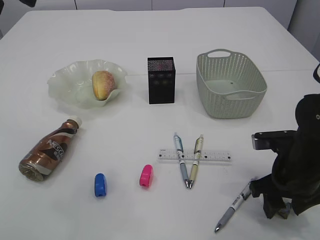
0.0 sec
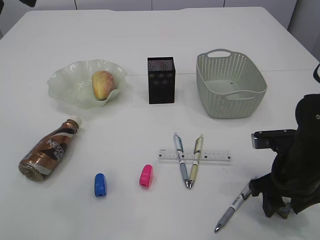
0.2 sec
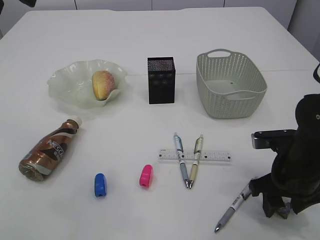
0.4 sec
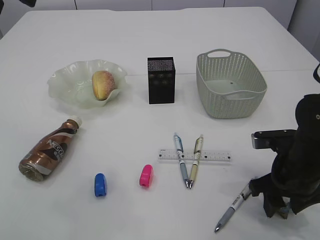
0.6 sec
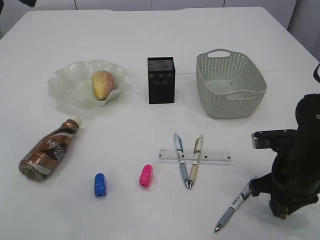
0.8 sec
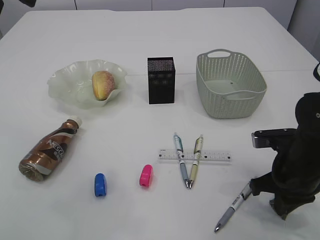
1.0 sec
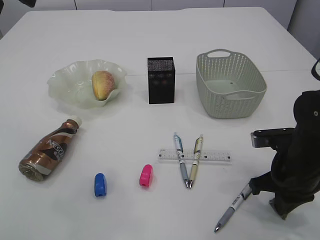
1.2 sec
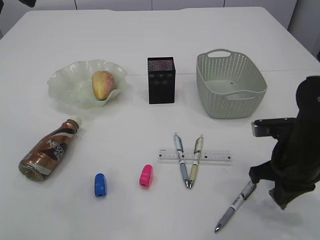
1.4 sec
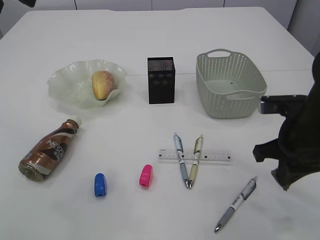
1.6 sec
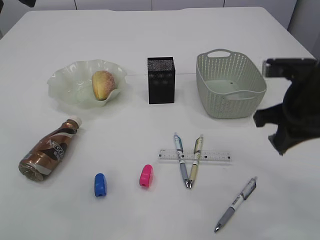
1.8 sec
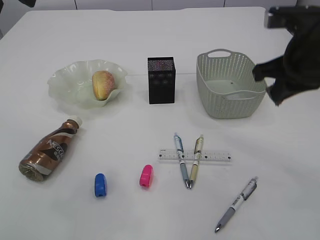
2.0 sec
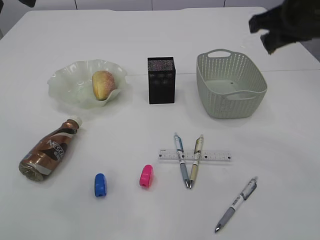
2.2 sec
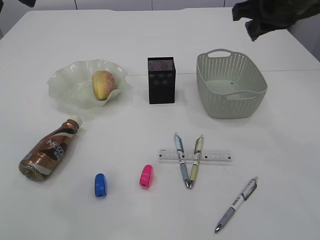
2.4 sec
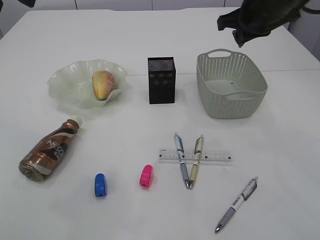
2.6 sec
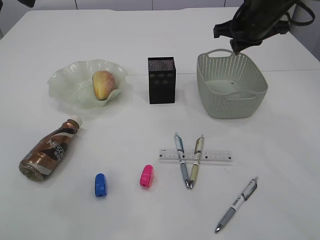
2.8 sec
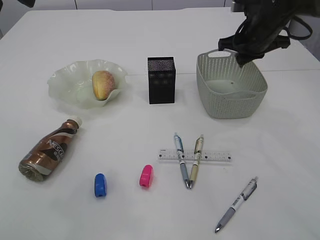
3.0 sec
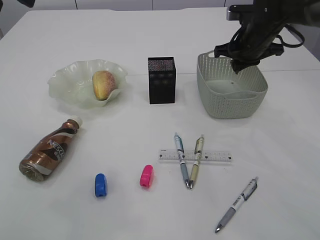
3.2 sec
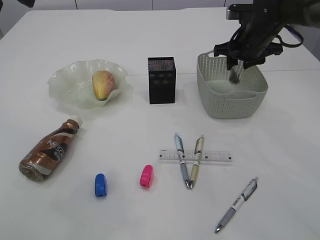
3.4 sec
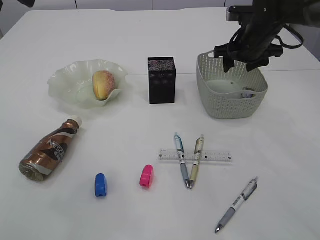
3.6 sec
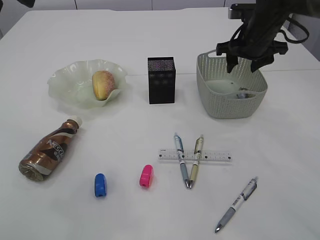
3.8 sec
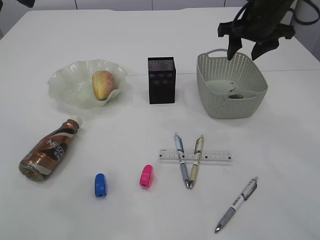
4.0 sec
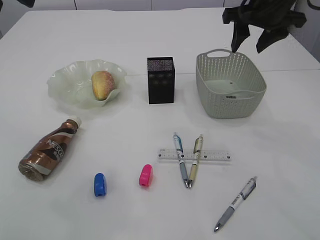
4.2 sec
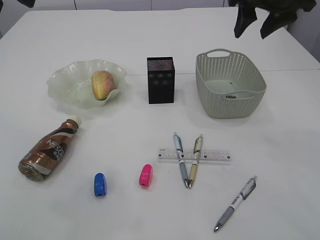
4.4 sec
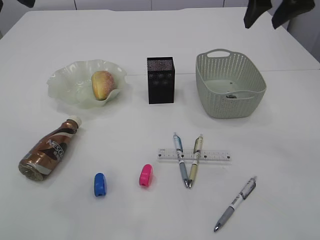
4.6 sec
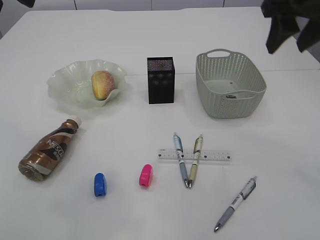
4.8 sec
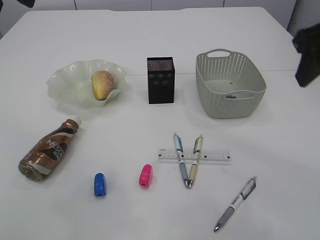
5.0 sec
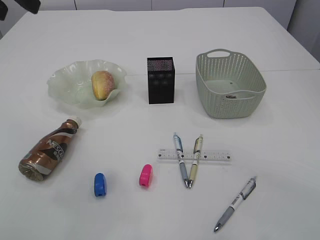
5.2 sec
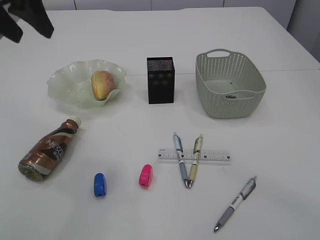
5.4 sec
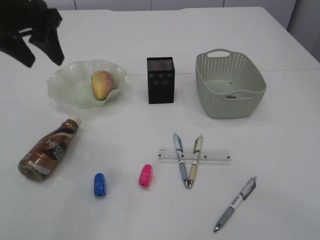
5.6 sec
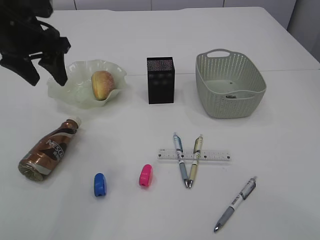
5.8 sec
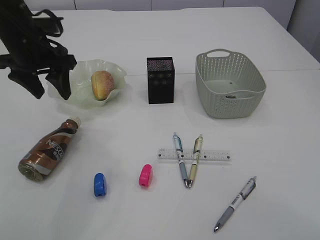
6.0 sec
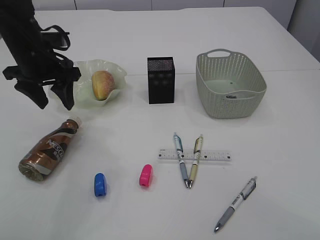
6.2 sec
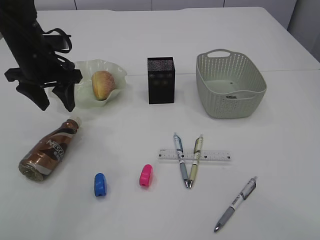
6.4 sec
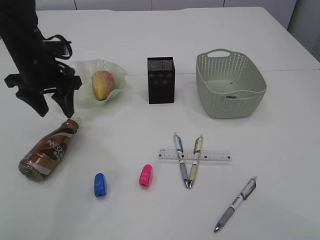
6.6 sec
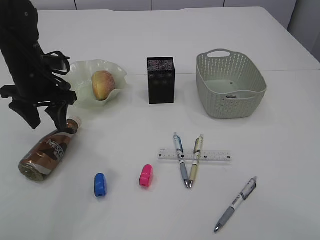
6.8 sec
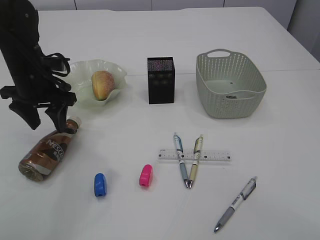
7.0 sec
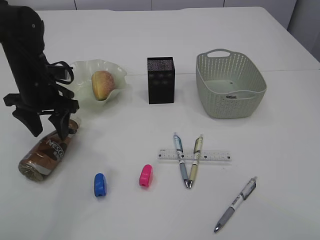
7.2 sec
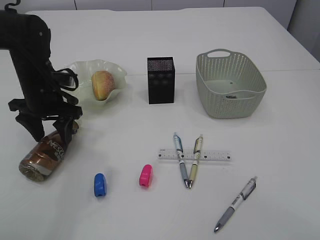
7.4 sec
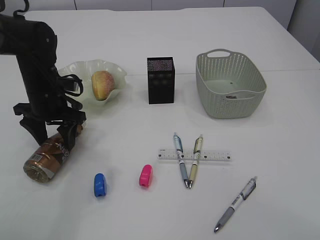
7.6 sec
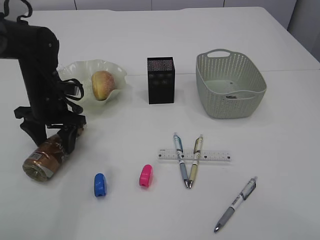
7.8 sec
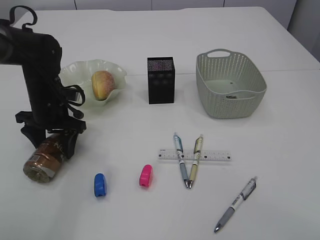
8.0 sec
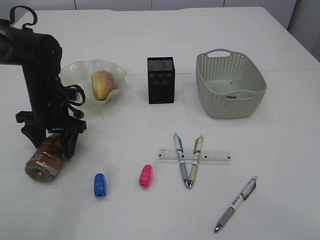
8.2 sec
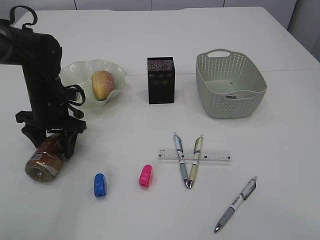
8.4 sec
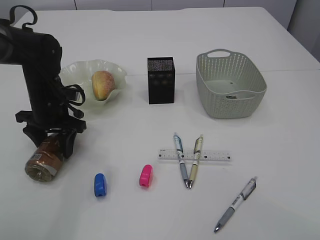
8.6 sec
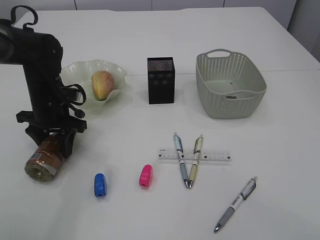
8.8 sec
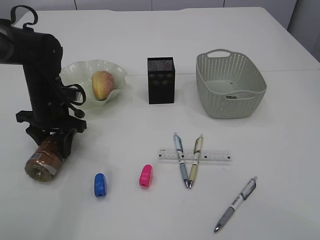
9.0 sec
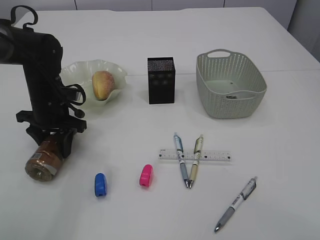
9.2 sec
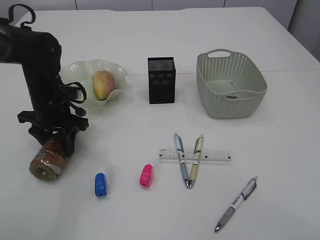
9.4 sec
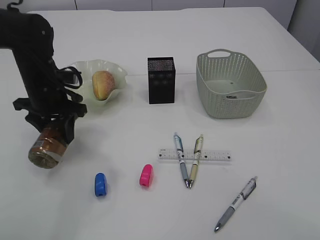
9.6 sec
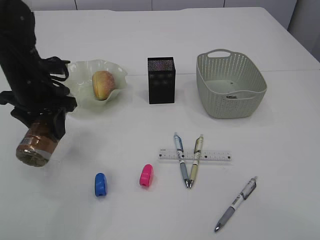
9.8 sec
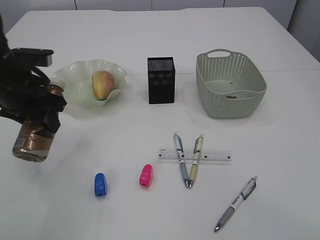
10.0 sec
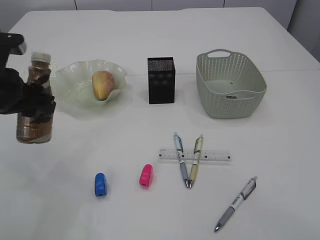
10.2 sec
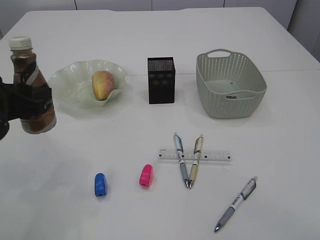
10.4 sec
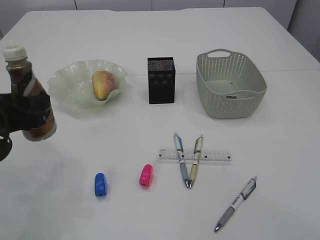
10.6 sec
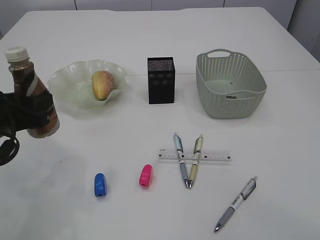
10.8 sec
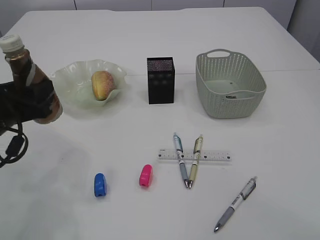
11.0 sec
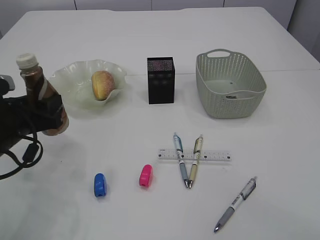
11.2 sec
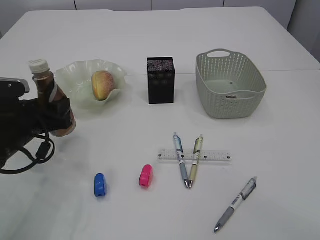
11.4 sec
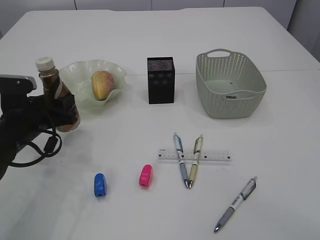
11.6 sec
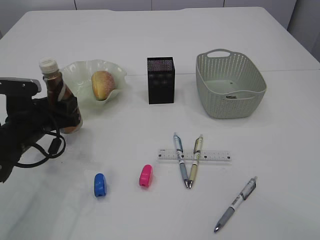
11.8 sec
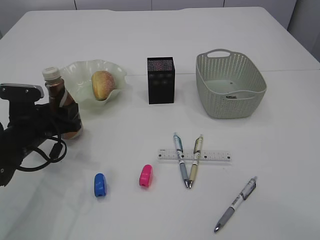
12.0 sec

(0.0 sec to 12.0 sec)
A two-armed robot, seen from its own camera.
Step, 2.0 sec - 4.2 sec: Place the waste paper in the basket.
Step, 4.4 sec - 10.0 sec: Pick up the bottle with the left arm.
0.0 sec - 1.6 sec: The right gripper travels upward by approximately 5 cm, and closes its fingers.
1.6 sec - 3.0 sec: The right gripper goes approximately 20 cm forward.
3.0 sec - 4.4 sec: The right gripper is displaced upward and backward by roughly 10 cm, and opens up.
4.4 sec - 6.0 sec: The left gripper goes roughly 20 cm downward and forward. Meanwhile the right gripper is displaced backward by about 30 cm.
6.0 sec - 7.6 sec: The left gripper moves downward, roughly 10 cm.
7.6 sec - 9.0 sec: The left gripper closes.
9.0 sec - 10.4 sec: The left gripper is displaced backward and upward by about 15 cm.
10.4 sec - 12.0 sec: The left gripper moves downward and forward, approximately 15 cm.

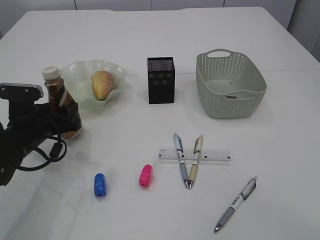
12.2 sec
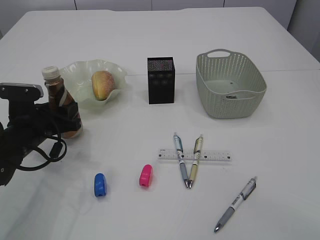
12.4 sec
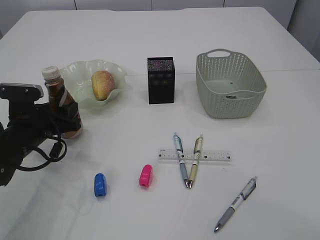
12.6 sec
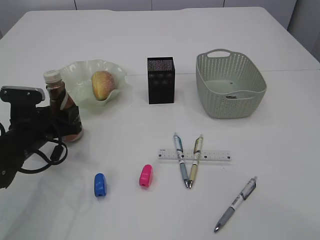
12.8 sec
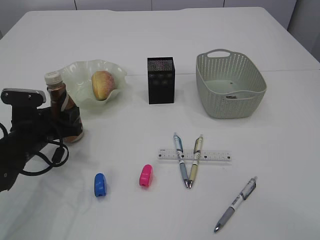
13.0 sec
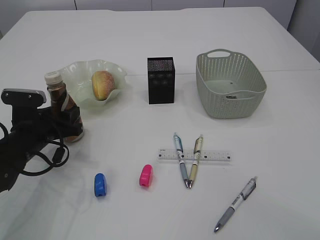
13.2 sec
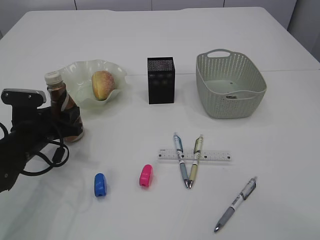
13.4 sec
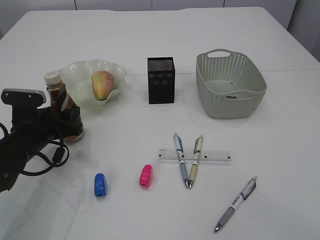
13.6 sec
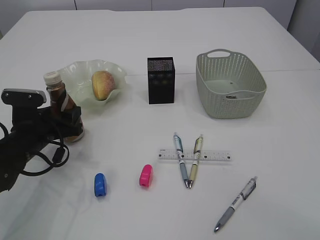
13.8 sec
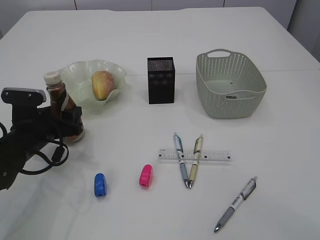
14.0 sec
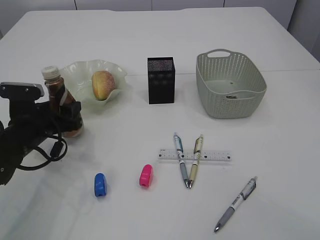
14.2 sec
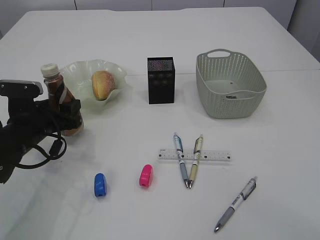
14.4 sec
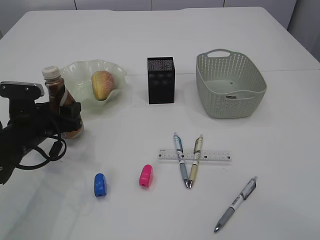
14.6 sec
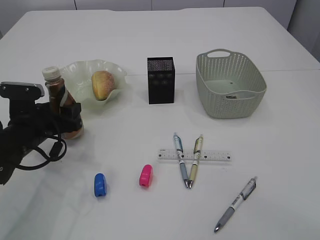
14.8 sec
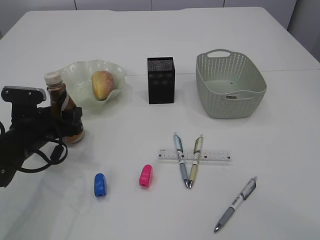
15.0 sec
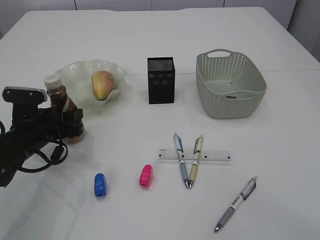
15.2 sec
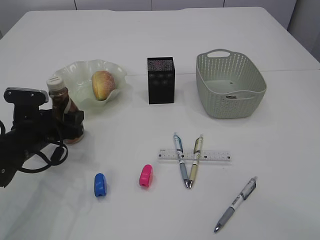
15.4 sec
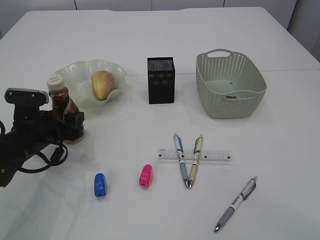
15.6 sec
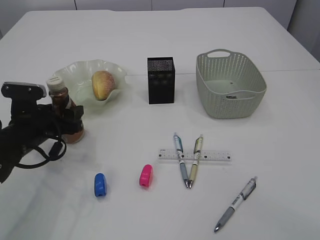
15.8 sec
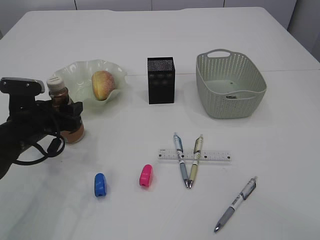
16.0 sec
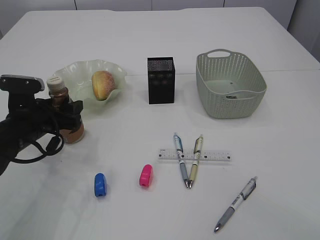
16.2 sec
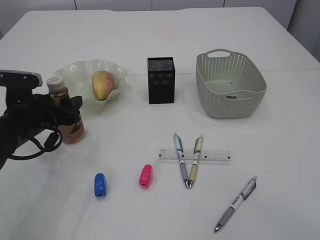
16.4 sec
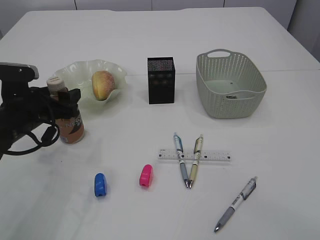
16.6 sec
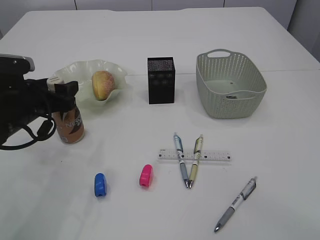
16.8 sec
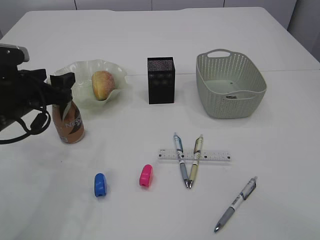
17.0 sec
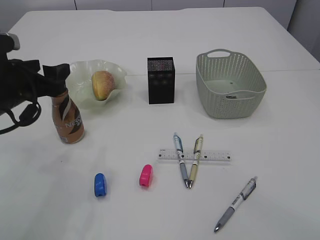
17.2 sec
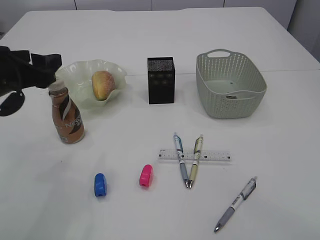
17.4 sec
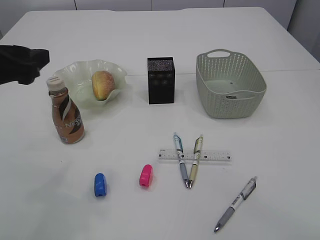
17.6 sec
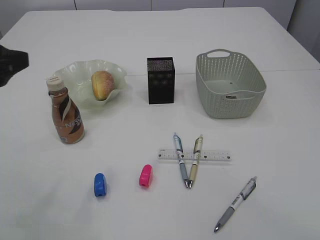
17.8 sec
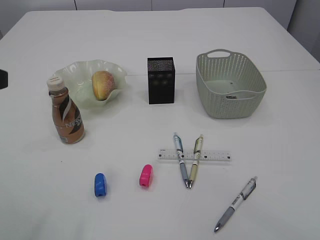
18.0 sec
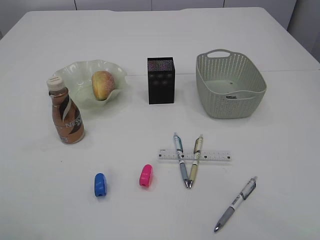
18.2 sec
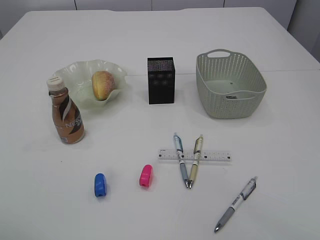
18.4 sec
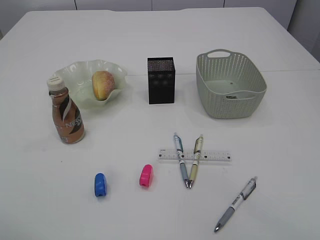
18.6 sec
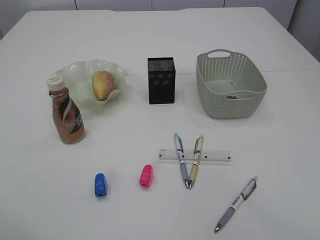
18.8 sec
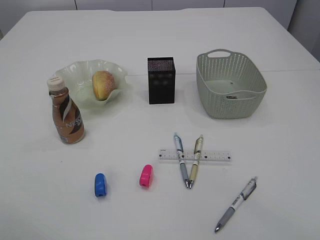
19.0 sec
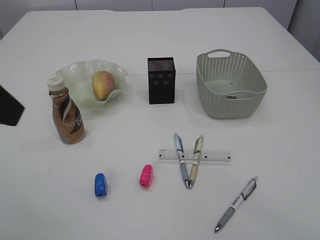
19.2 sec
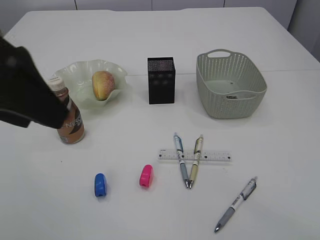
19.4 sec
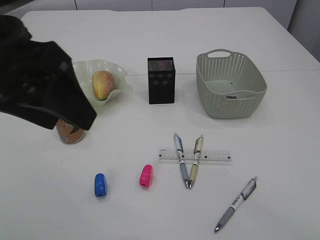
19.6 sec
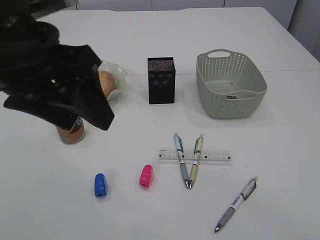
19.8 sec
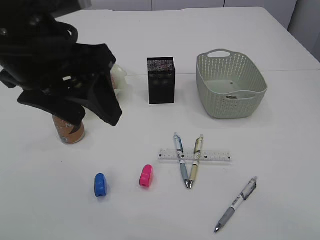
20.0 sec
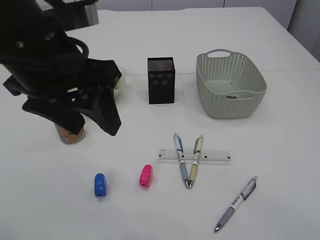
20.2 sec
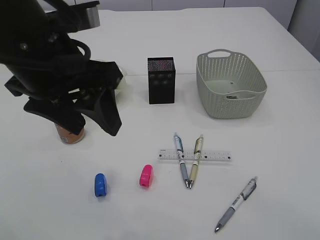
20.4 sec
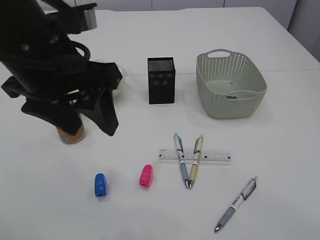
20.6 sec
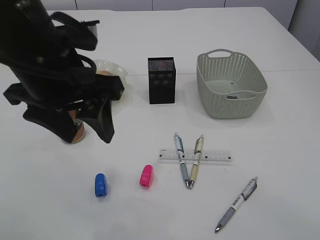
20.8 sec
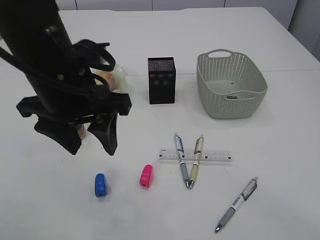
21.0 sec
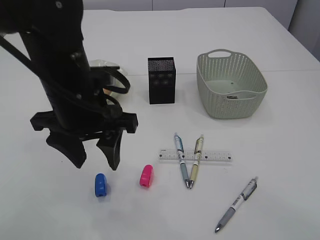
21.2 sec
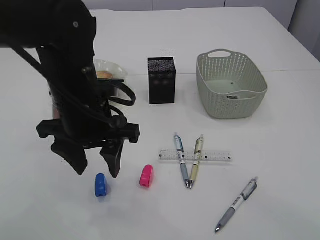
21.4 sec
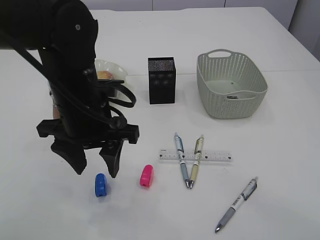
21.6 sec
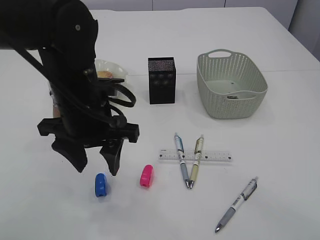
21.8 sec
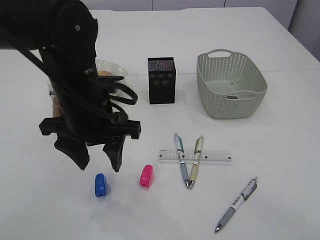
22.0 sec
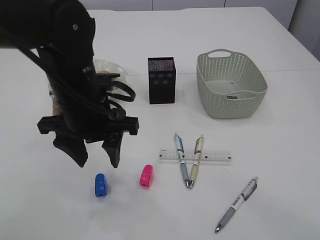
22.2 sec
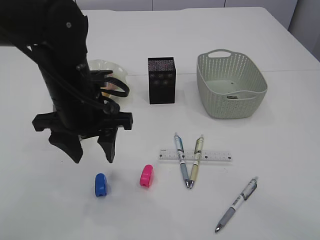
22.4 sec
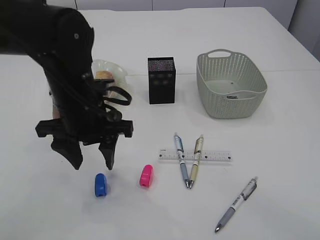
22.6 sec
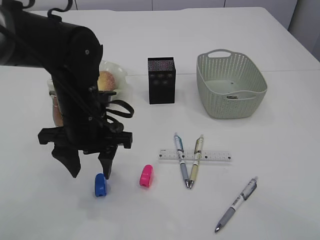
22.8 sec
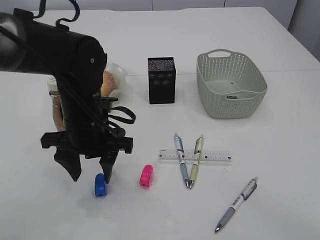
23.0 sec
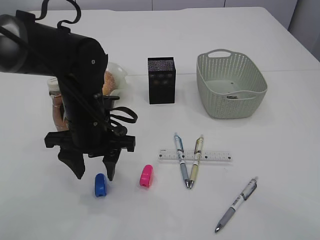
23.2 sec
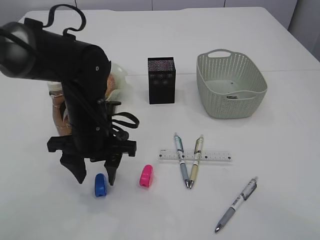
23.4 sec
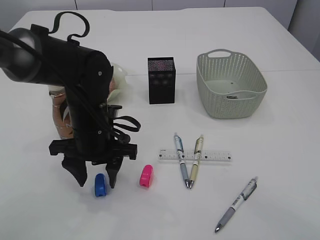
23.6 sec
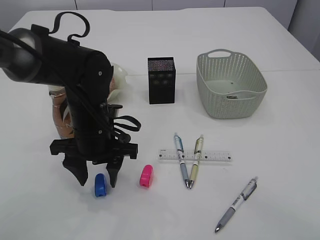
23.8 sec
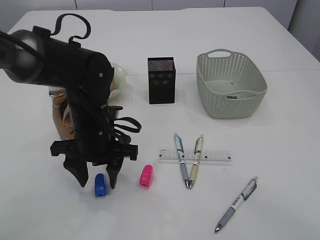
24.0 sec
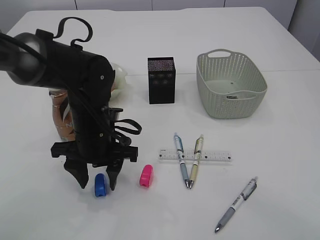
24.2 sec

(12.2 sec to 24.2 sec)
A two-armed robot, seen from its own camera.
Step, 12.2 sec - 17.4 sec: Place the bottle.
12.2 sec - 13.8 sec: Both grippers stay about where they are.
13.8 sec - 16.6 sec: The grippers stay close to where they were, moving slightly.
16.6 sec - 18.2 sec: The left gripper is displaced upward and backward by roughly 25 cm.
18.2 sec - 19.8 sec: The left gripper is displaced to the right by roughly 15 cm.
19.8 sec - 21.2 sec: The left gripper is displaced downward and forward by some 10 cm.
21.2 sec - 22.6 sec: The left gripper shifts by roughly 5 cm.
22.6 sec - 24.2 sec: The left gripper is displaced downward by approximately 5 cm.
